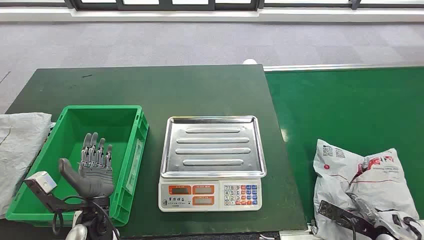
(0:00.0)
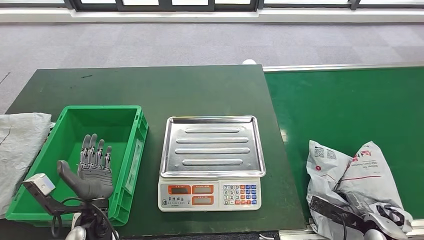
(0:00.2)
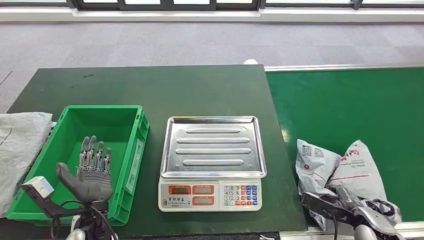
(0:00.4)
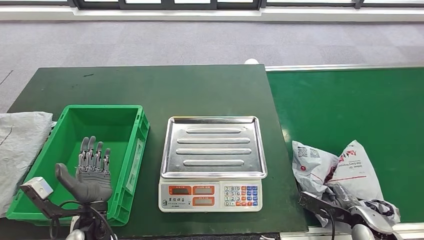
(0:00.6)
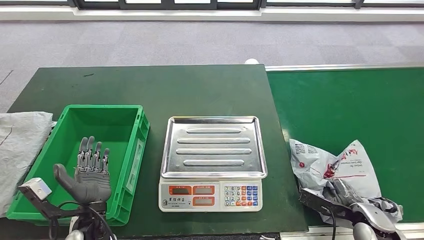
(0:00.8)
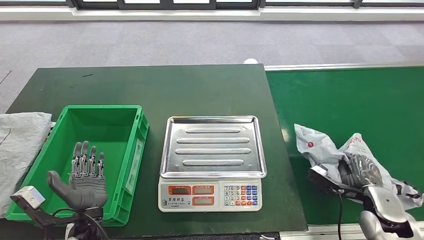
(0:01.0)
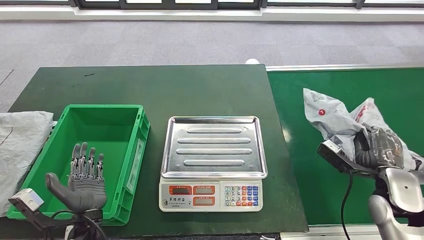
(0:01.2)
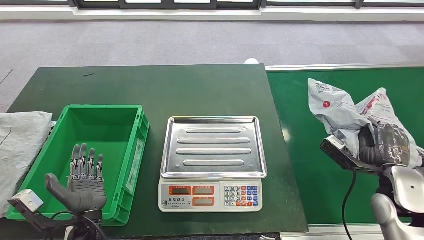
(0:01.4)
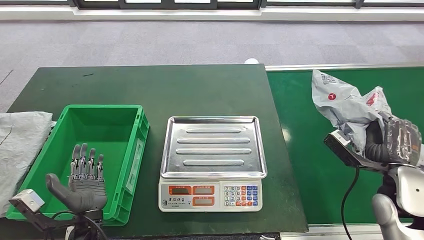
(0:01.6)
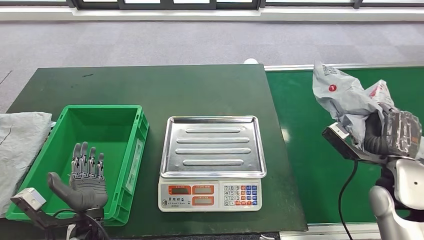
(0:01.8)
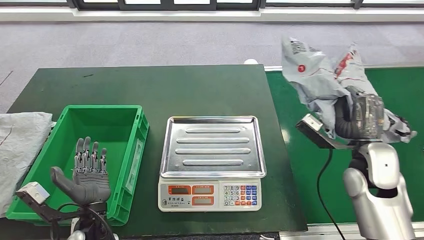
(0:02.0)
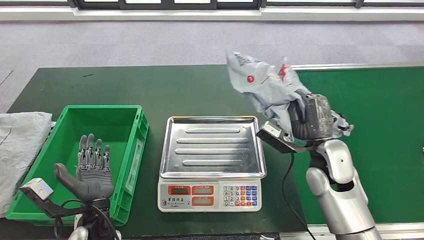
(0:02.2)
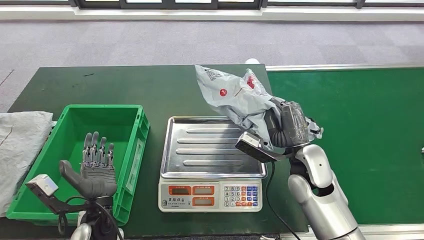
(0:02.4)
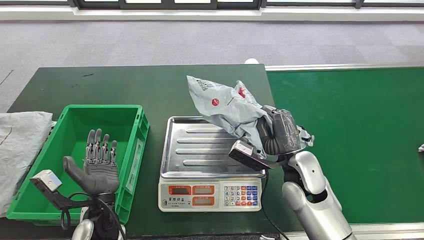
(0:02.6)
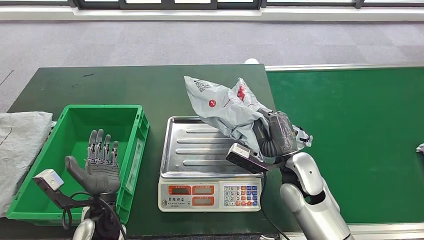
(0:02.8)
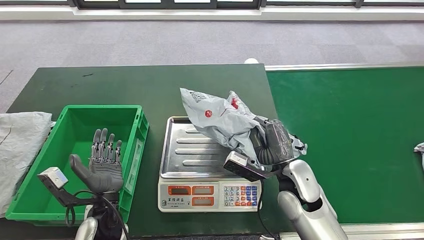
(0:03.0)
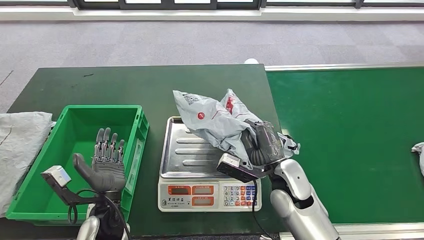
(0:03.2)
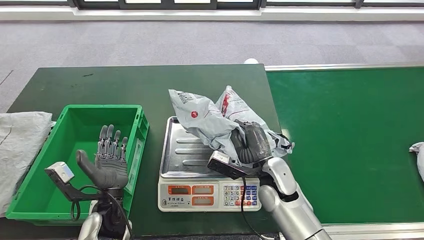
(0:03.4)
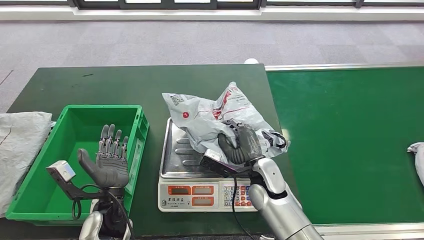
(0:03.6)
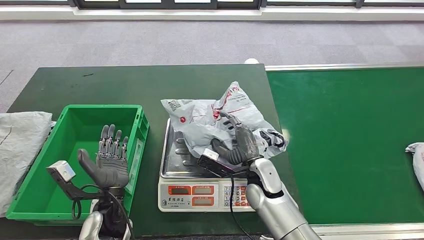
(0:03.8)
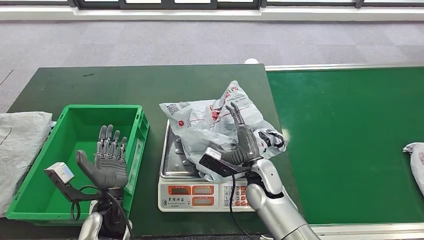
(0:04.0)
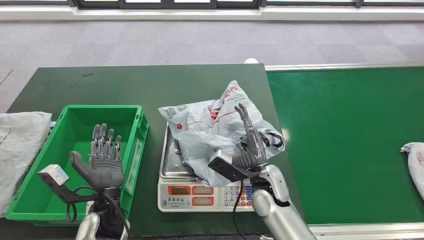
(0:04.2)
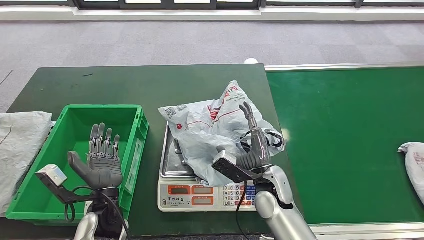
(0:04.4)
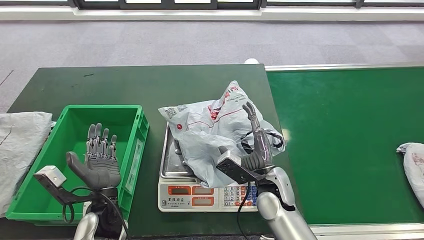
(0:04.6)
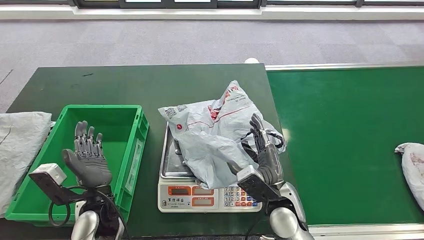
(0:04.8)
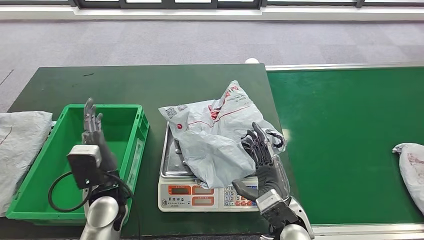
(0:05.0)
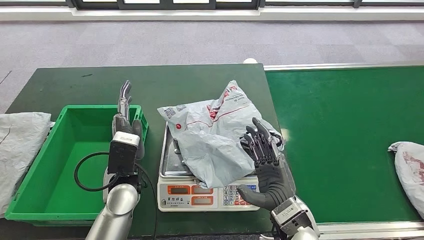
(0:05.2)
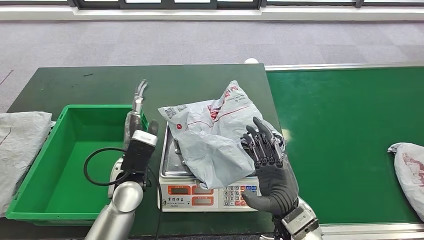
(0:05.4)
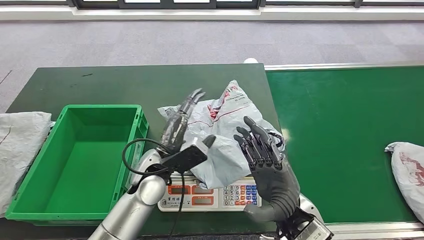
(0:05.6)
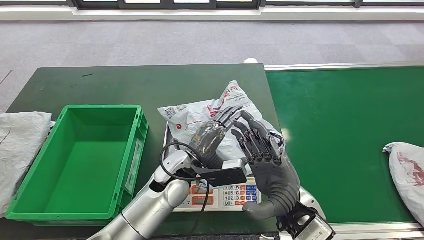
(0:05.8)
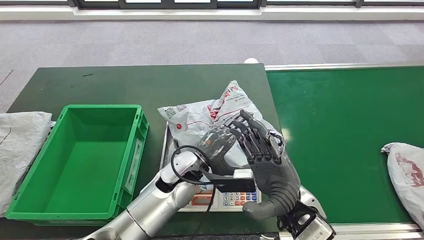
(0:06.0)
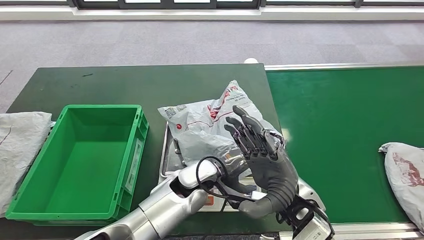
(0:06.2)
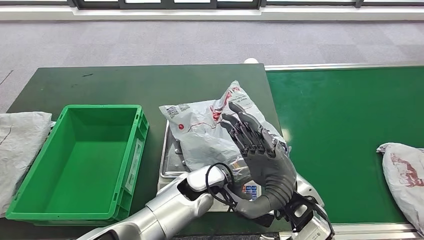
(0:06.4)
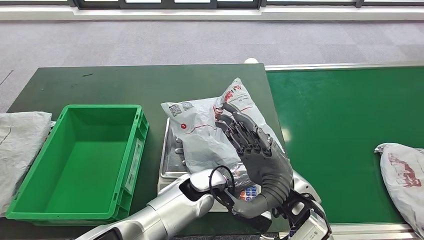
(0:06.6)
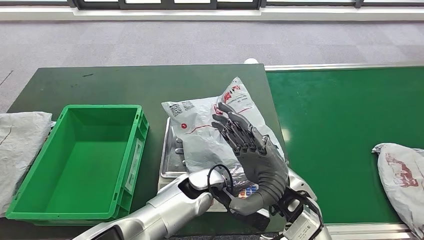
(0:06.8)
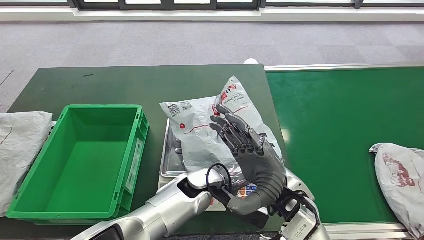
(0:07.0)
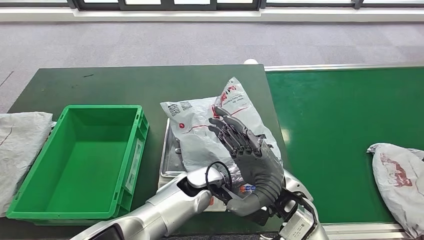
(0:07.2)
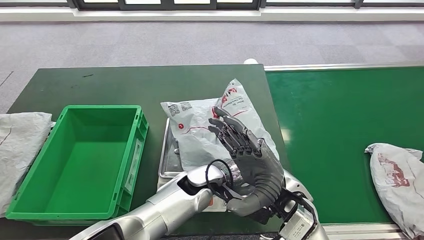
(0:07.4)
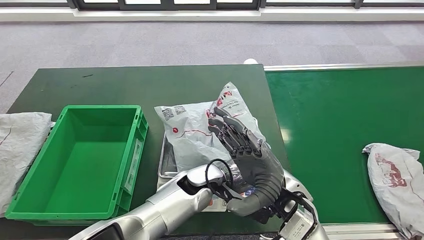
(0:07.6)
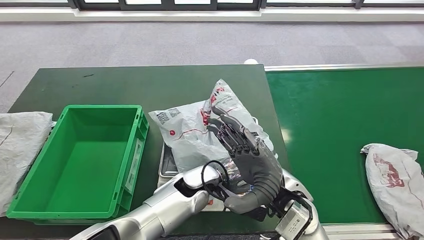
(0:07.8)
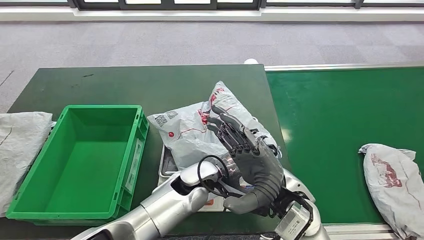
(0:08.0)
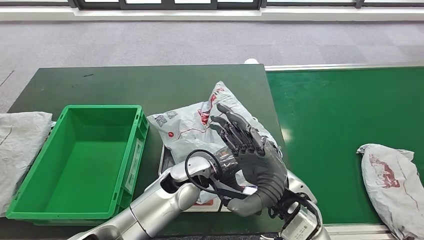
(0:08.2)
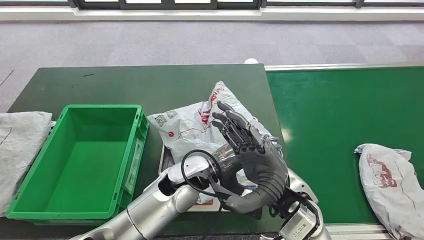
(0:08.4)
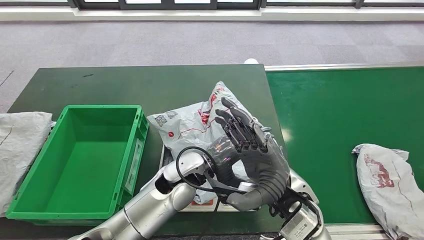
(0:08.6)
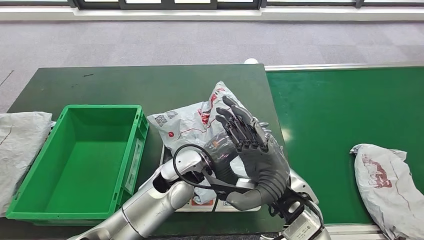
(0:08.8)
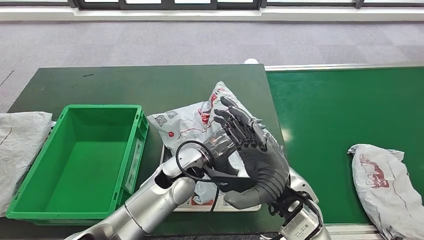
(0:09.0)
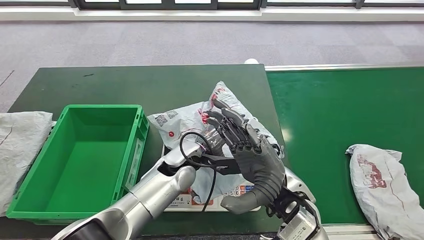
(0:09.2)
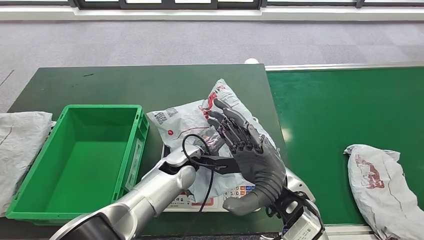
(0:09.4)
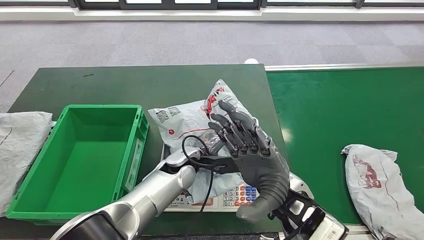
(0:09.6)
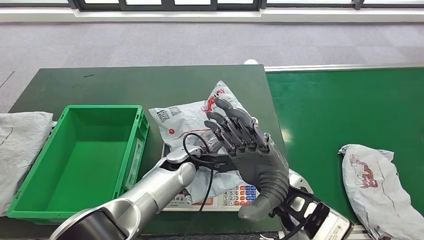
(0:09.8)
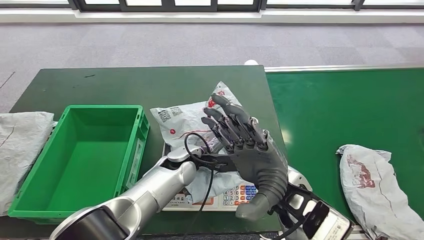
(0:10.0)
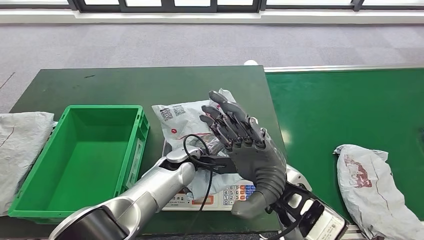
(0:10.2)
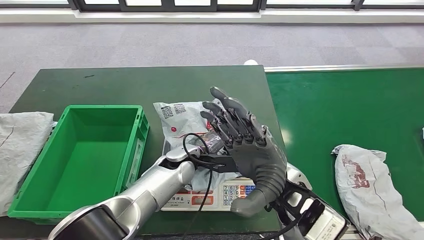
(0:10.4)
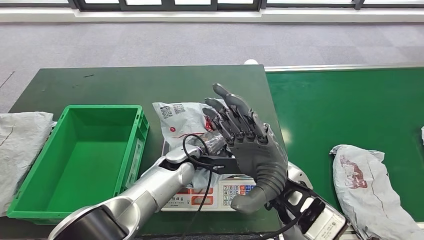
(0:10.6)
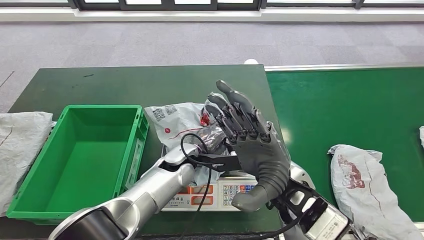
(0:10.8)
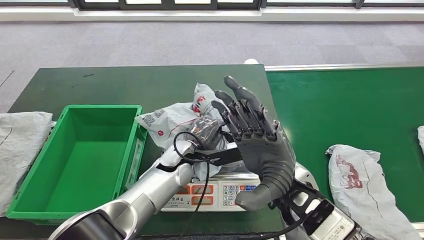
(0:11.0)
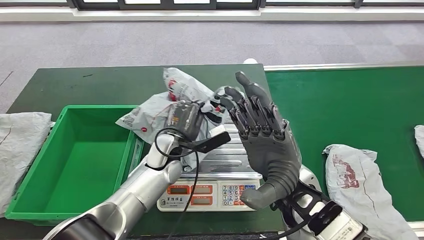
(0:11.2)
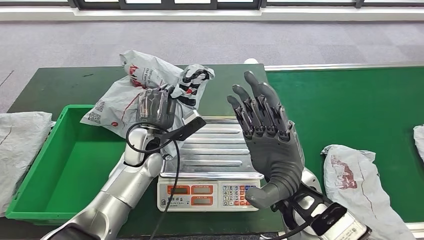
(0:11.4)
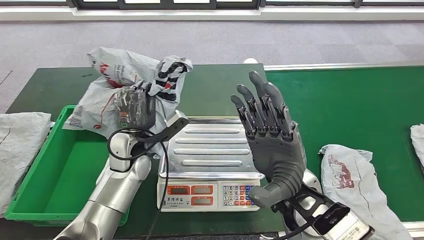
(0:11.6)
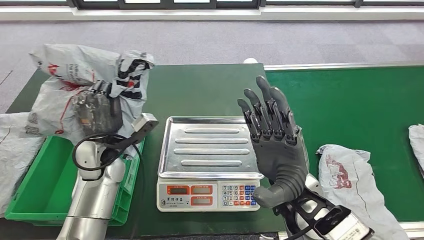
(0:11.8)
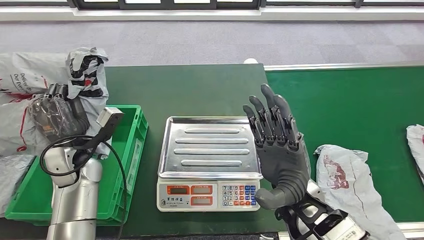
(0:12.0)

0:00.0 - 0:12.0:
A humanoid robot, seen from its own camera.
Step, 0:00.0 - 0:02.4: Take the parcel off the conveyor belt.
Step, 0:02.6 - 0:04.2: Place the parcel onto the inbound machine.
Step, 0:04.4 - 0:11.2: Pick up the parcel from the inbound machine.
0:03.0 - 0:04.4: The right hand moves to the left, approximately 5 cm.
0:04.4 - 0:06.0: The left hand heads to the right and forward, covering some 20 cm. The right hand moves upward and backward, about 10 cm.
0:07.6 - 0:09.0: The left hand goes about 5 cm upward.

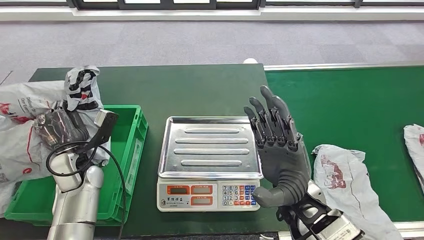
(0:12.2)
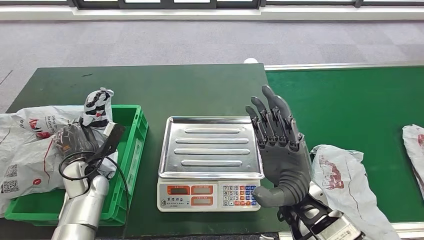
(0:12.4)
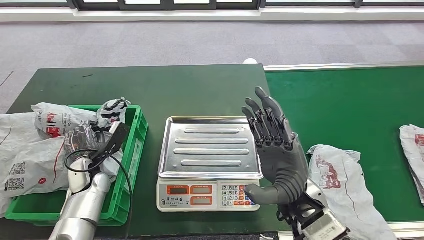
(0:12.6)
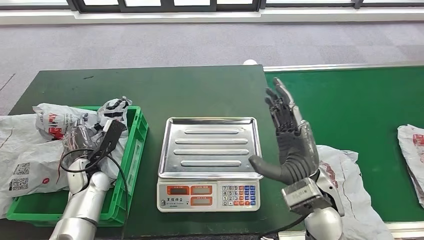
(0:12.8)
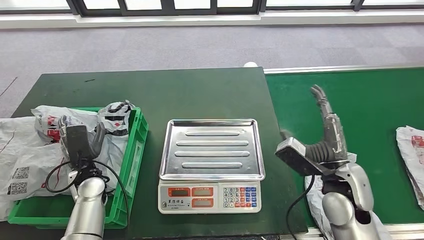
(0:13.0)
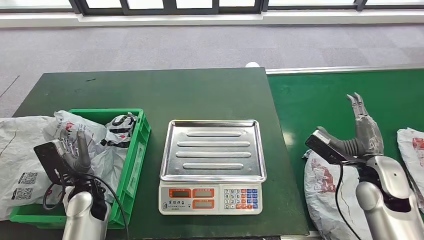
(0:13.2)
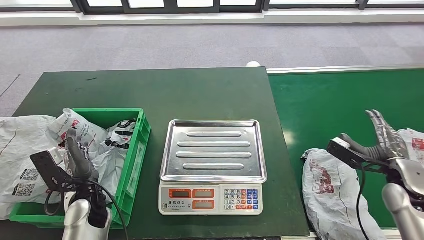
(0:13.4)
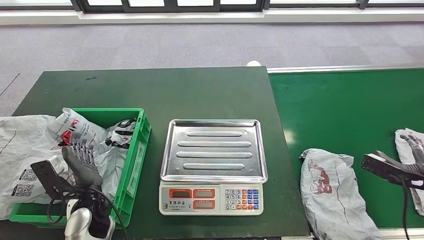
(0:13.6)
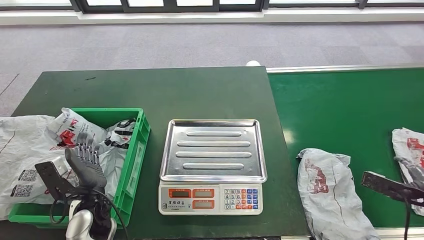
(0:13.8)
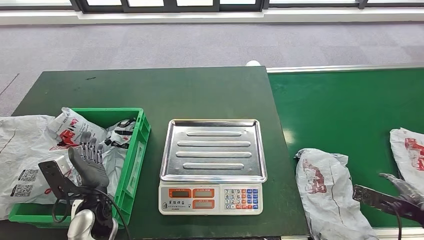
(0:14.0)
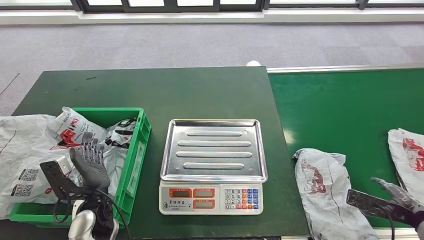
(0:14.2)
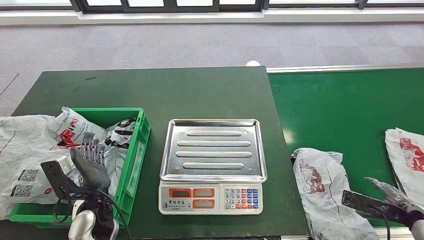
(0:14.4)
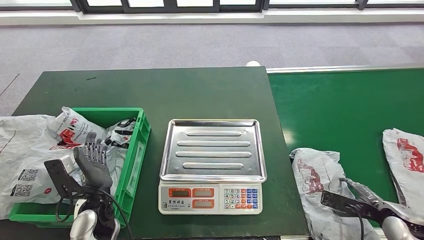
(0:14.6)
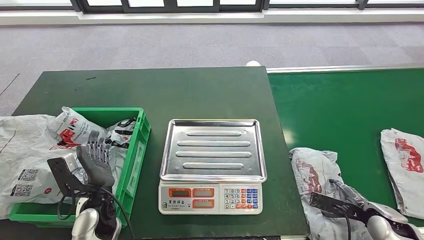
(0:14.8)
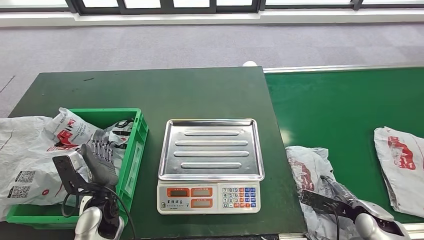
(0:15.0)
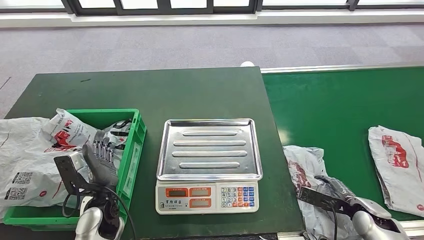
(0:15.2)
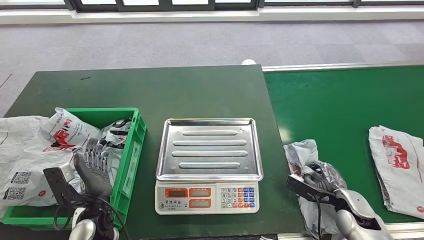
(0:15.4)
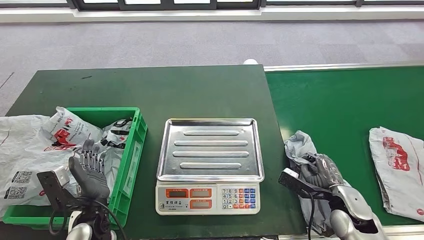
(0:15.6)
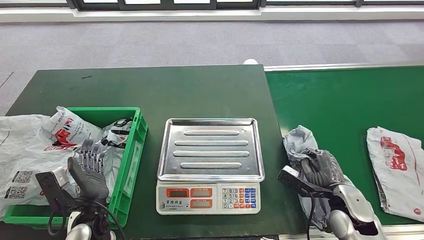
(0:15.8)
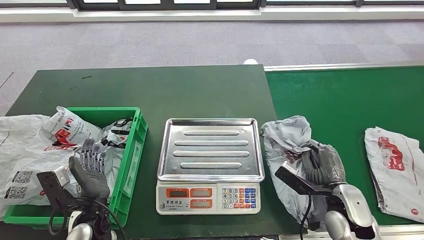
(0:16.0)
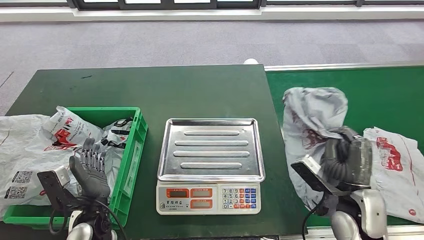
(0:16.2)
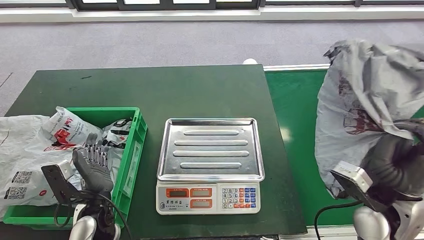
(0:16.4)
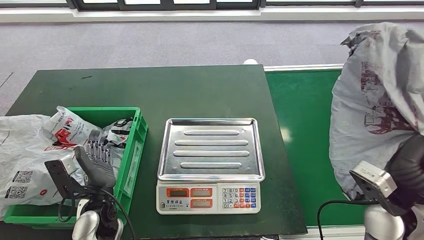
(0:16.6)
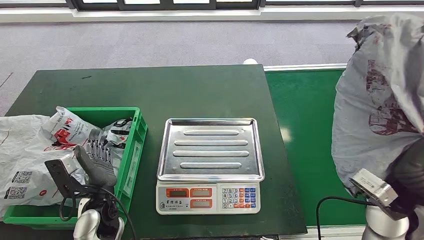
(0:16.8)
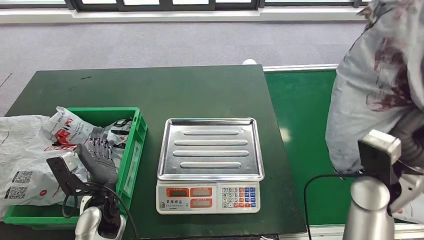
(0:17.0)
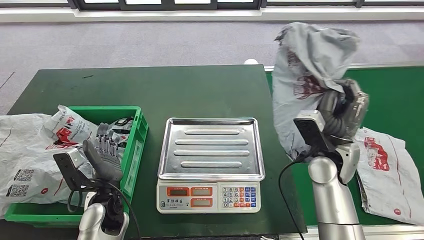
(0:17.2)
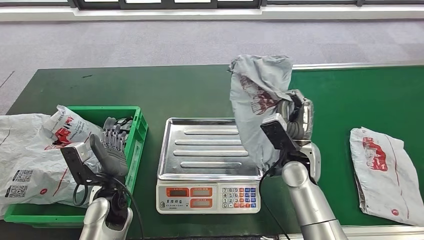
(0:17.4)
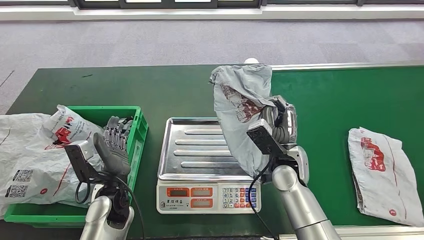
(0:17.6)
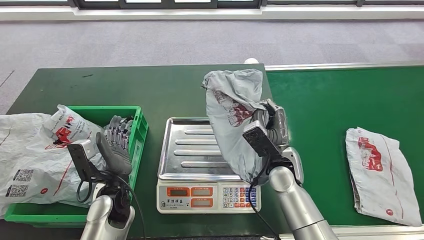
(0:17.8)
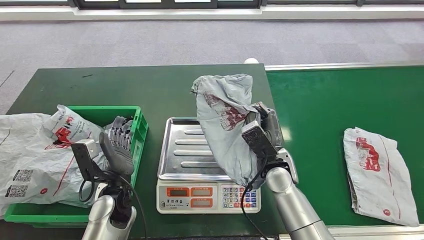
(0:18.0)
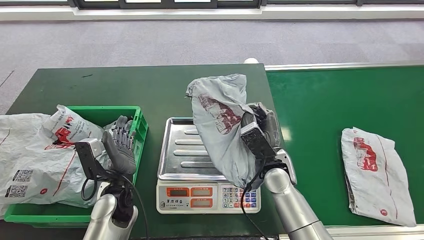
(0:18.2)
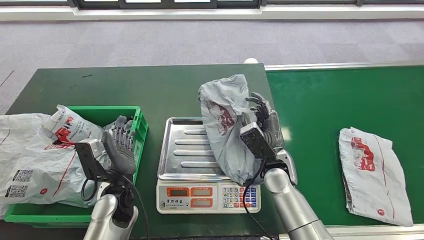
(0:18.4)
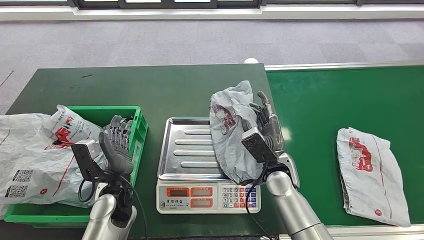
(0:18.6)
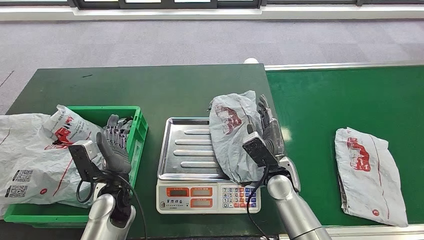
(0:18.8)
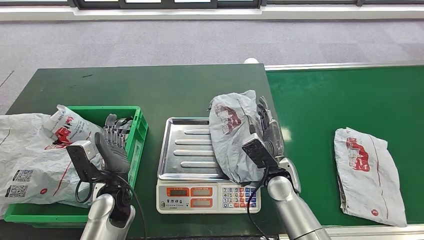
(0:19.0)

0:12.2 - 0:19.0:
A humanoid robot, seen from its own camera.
Step, 0:12.2 - 0:13.2: Put the parcel inside the courier box.
Step, 0:13.4 - 0:17.2: Pick up the parcel from the conveyor belt.
0:17.6 - 0:19.0: The hands move only a little.
